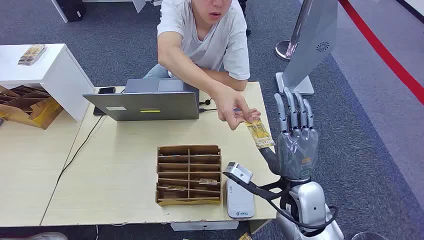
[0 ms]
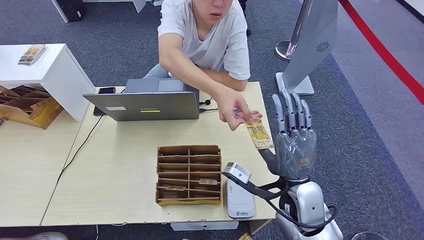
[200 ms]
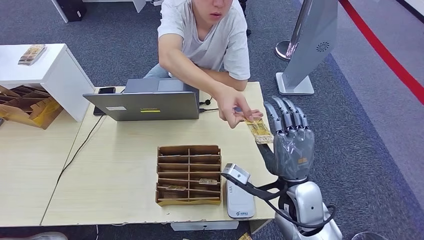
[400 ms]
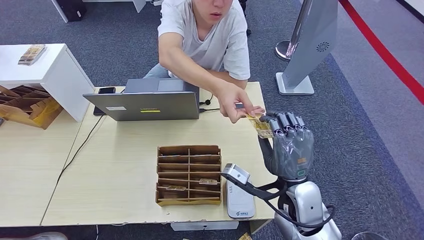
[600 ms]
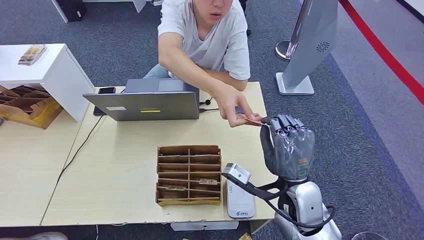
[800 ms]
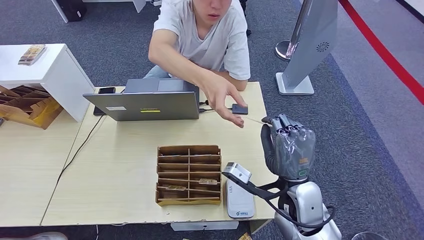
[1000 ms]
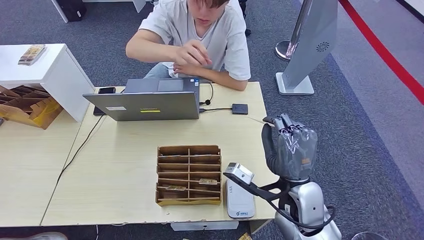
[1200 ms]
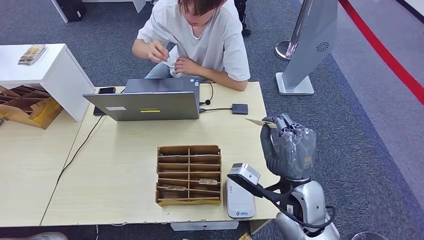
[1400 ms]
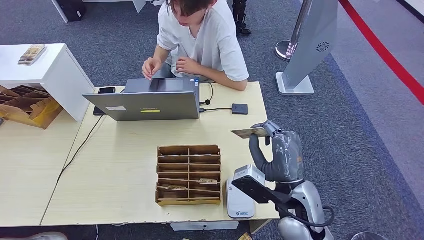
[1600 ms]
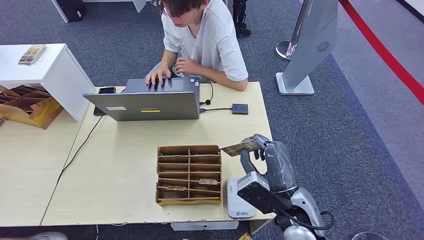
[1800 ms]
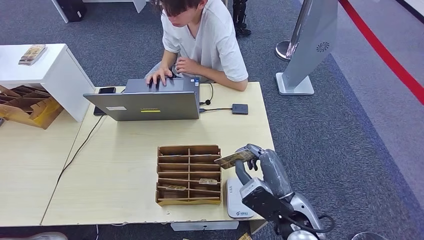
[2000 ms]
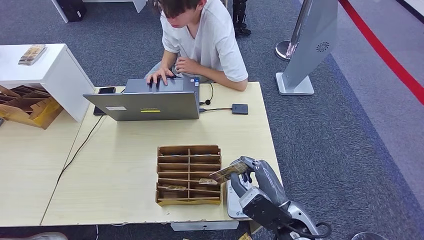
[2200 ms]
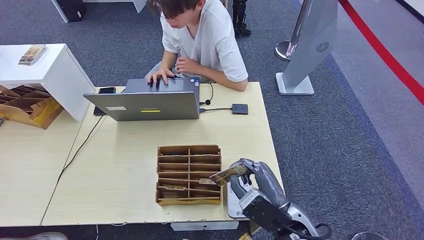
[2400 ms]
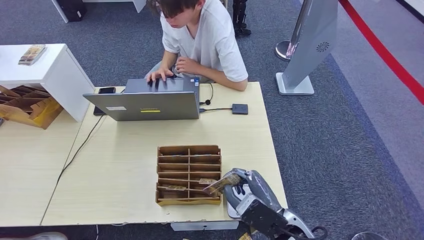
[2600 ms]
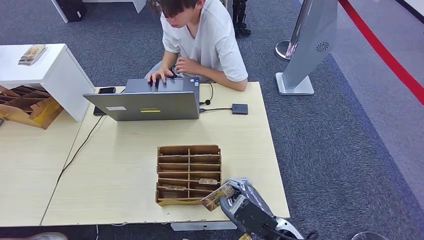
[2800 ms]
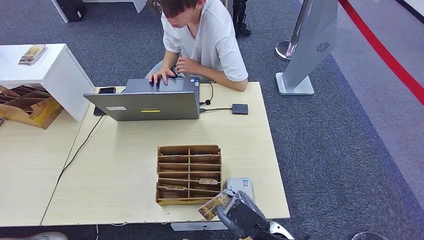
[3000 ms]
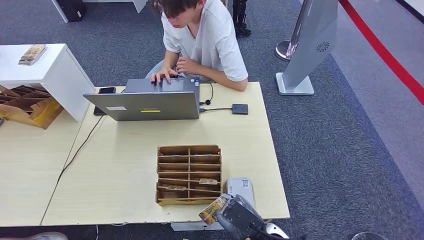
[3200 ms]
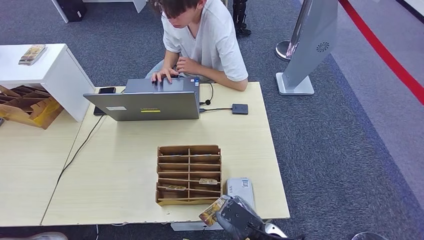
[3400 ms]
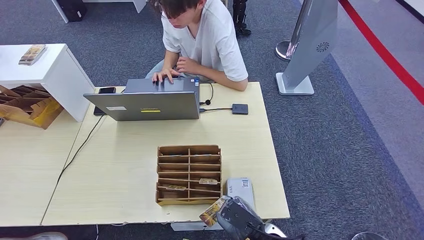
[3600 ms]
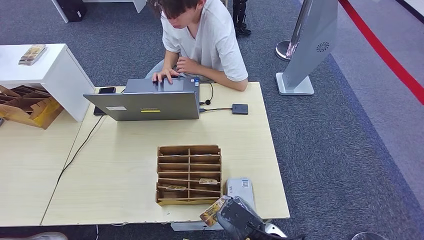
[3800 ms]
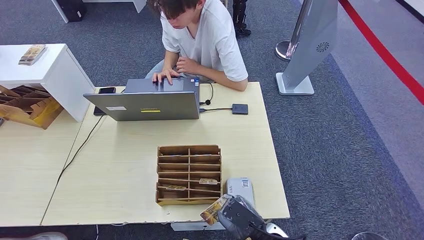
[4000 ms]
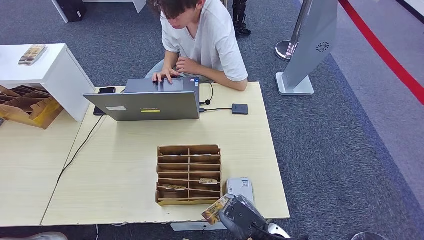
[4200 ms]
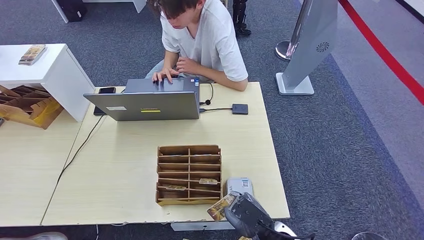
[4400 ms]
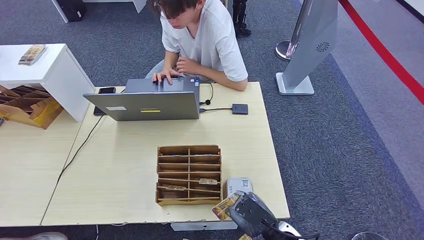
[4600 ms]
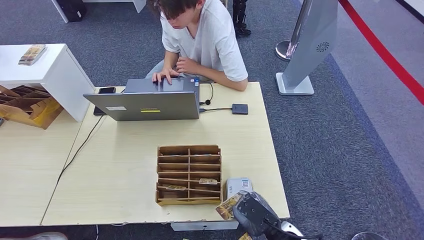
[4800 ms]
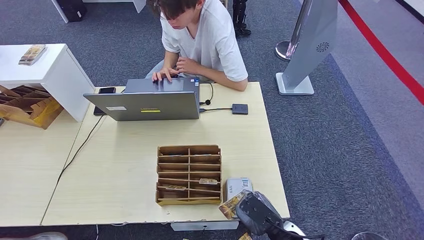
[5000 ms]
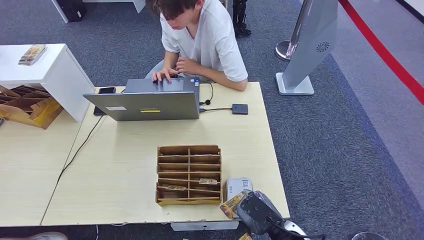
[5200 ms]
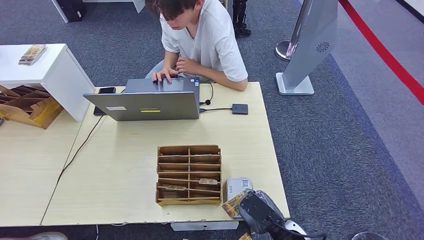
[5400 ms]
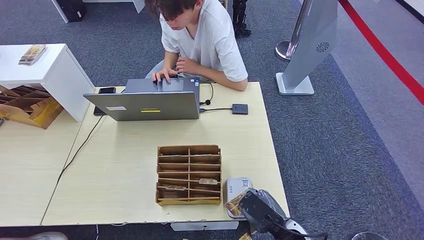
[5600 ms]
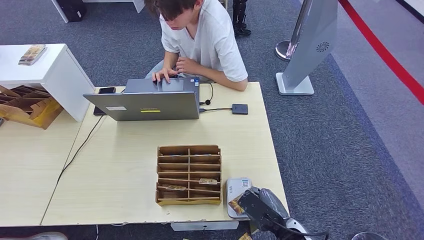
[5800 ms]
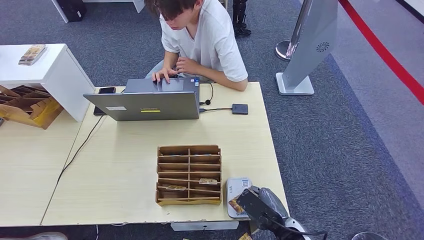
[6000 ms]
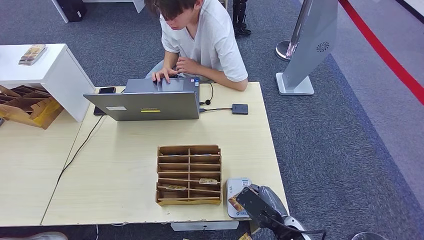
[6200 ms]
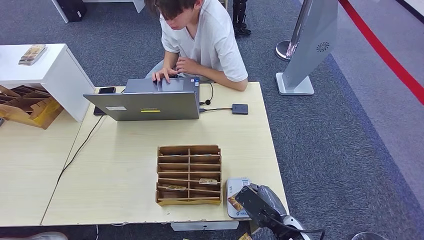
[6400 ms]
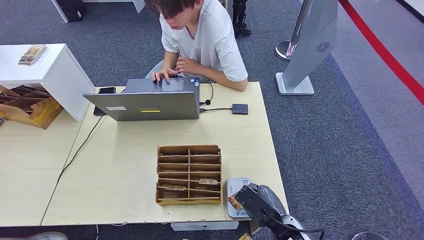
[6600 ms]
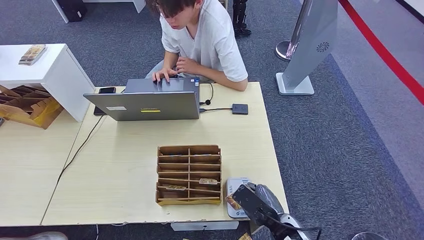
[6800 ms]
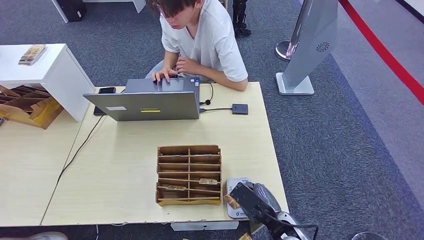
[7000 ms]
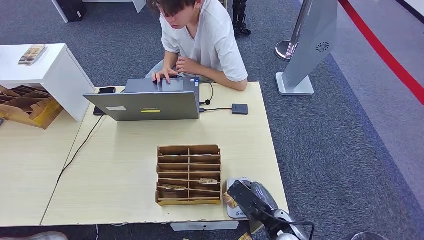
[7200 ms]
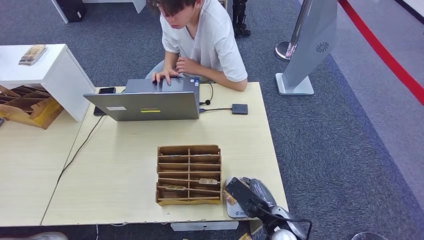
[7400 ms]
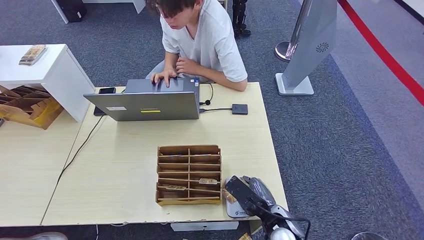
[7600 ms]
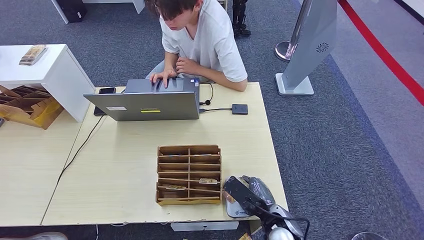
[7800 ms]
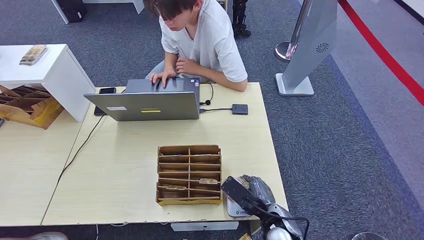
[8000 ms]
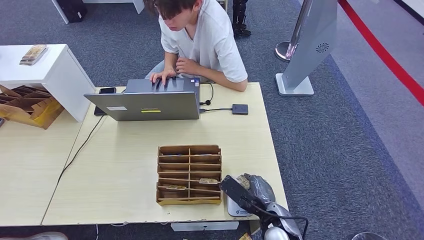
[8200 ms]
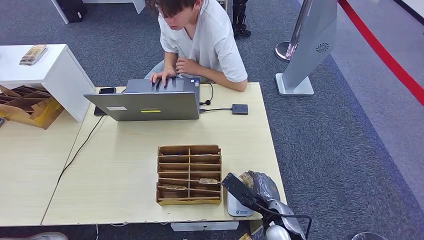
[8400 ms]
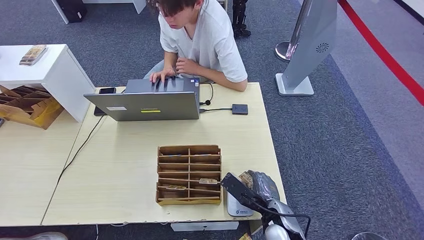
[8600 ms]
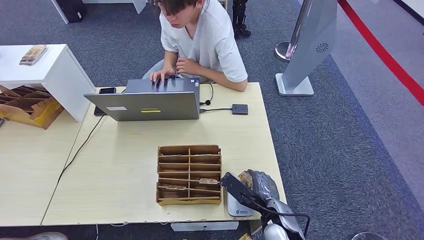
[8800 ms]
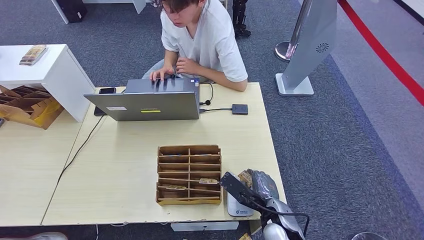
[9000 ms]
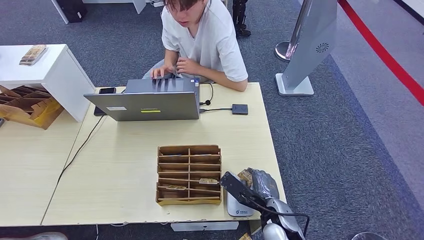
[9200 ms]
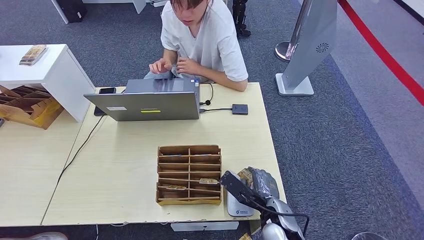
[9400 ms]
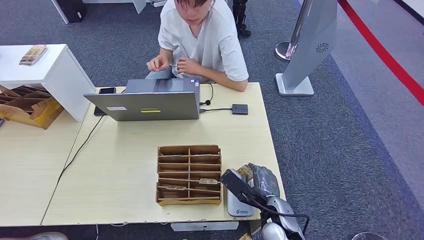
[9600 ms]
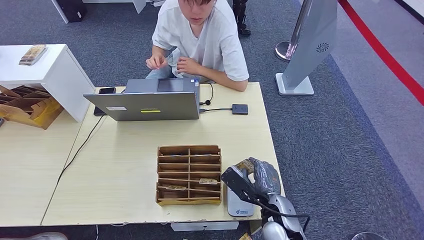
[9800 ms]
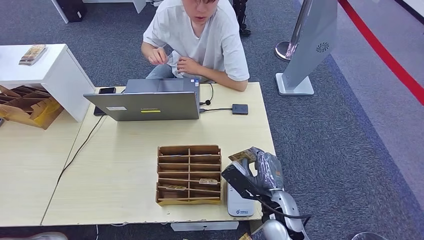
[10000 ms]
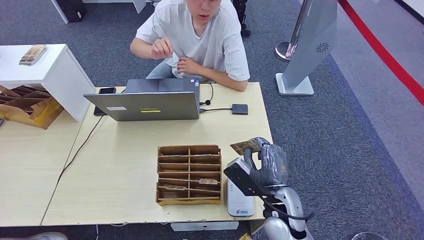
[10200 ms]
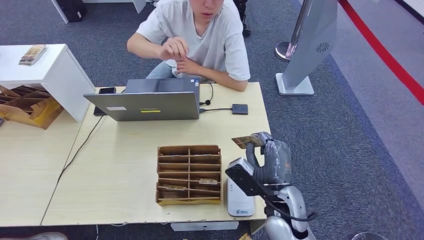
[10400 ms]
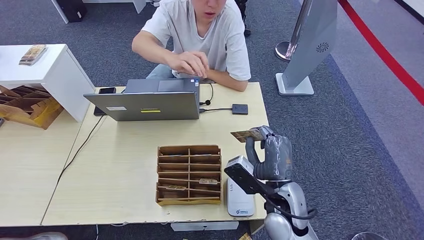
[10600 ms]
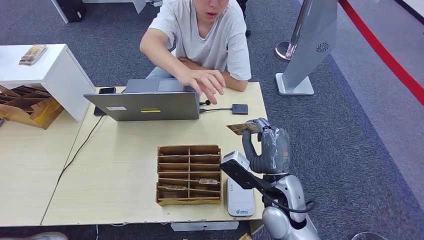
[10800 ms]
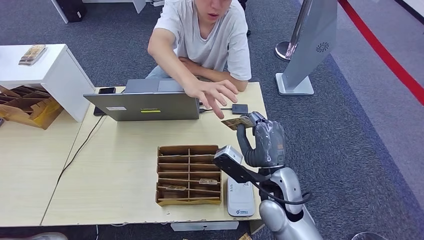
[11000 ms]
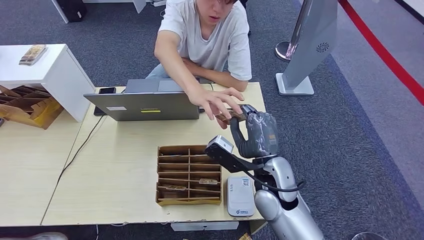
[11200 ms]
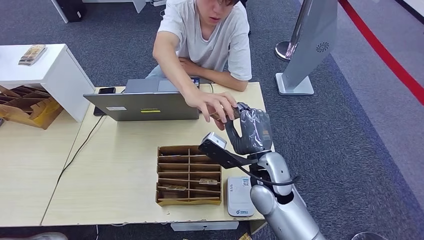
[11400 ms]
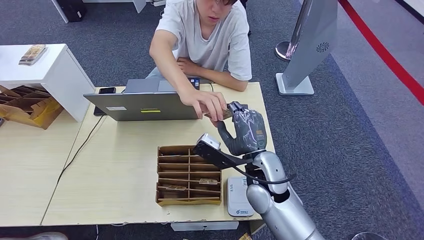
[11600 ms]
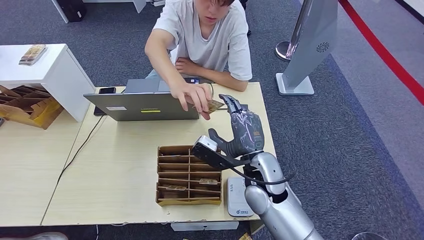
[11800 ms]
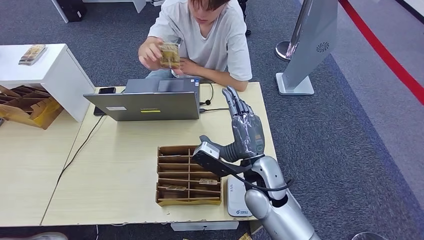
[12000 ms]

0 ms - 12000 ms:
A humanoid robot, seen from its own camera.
Step, 0 ms - 2200 ms: Take the ID card from the person's hand.
Step, 2400 ms - 7800 ms: Place the ID card on the card reader.
1600 ms - 3000 ms: The right hand heads downward and backward, covering some 10 cm.
3000 ms - 4400 ms: There are only small adjustments of the hands.
4400 ms - 6000 ms: There are only small adjustments of the hands.
6000 ms - 7600 ms: The hands stay close to where they were, moving slightly.
7600 ms - 9000 ms: The hands move only a little.
9000 ms - 10400 ms: The right hand goes some 5 cm upward.
10400 ms - 12000 ms: The right hand shifts some 5 cm forward.

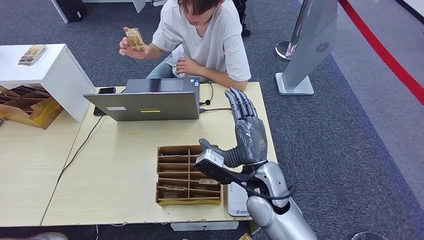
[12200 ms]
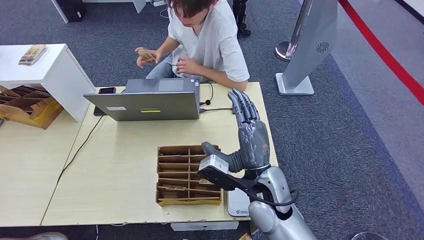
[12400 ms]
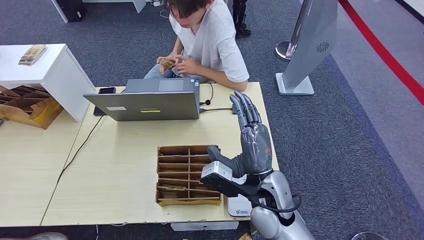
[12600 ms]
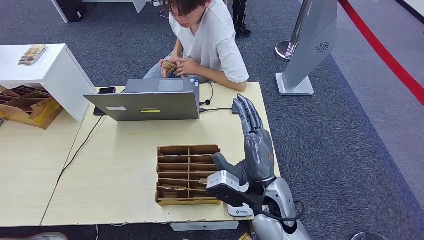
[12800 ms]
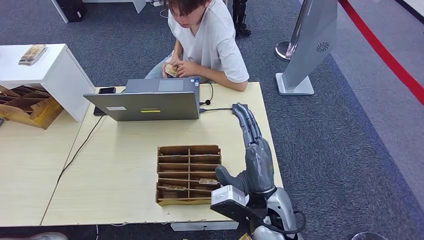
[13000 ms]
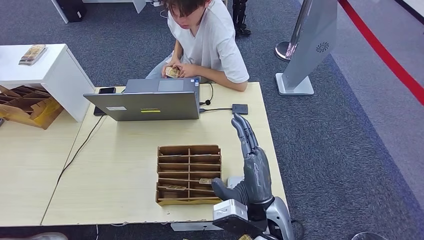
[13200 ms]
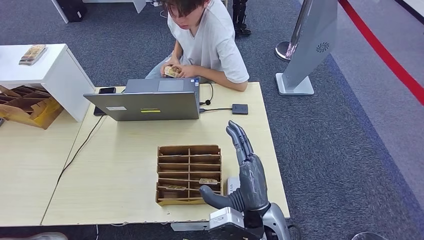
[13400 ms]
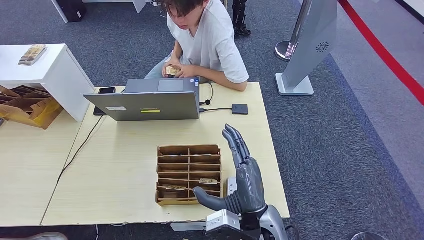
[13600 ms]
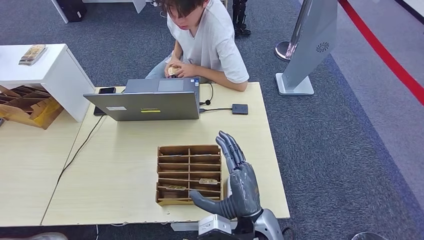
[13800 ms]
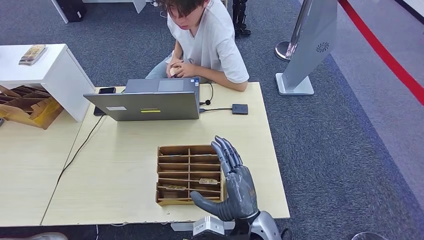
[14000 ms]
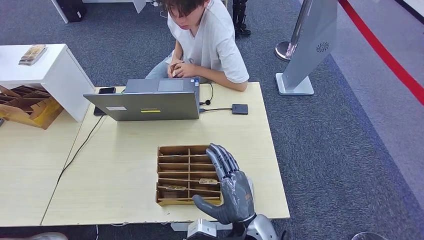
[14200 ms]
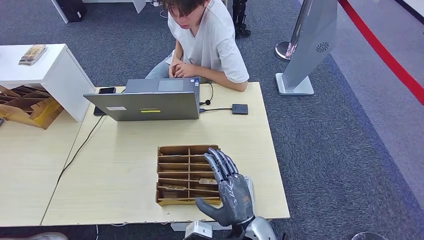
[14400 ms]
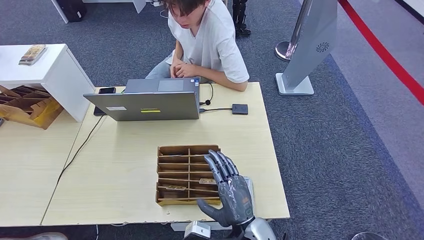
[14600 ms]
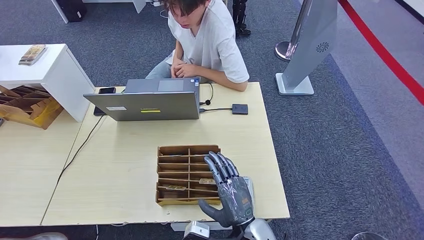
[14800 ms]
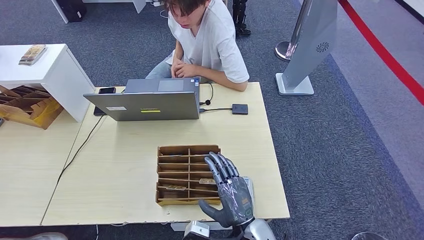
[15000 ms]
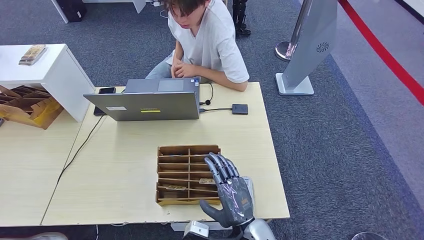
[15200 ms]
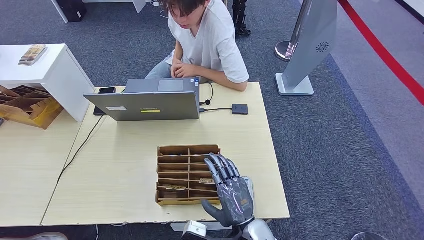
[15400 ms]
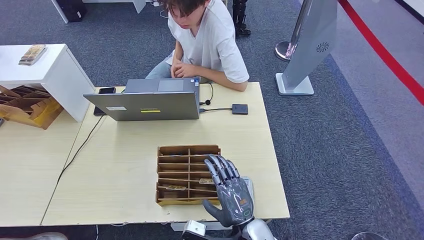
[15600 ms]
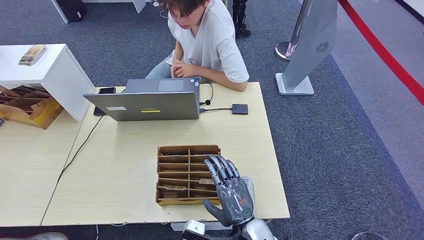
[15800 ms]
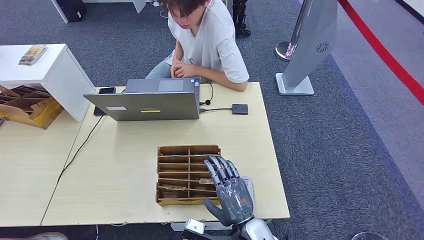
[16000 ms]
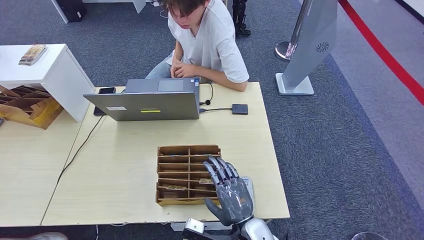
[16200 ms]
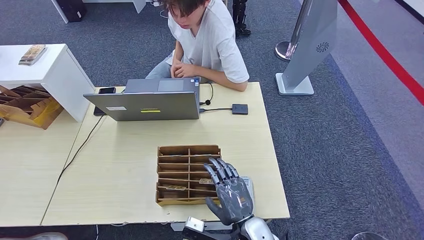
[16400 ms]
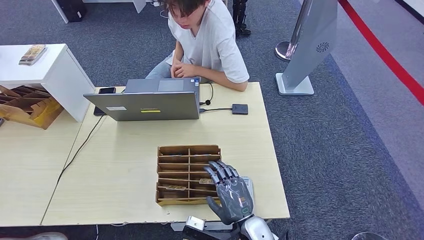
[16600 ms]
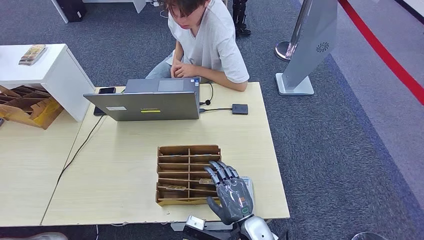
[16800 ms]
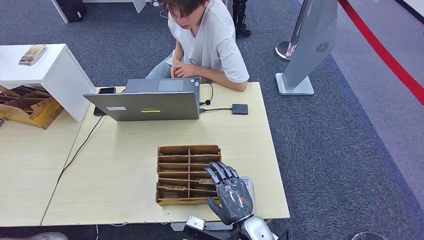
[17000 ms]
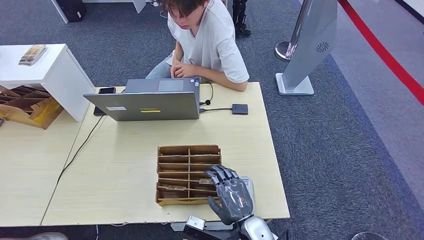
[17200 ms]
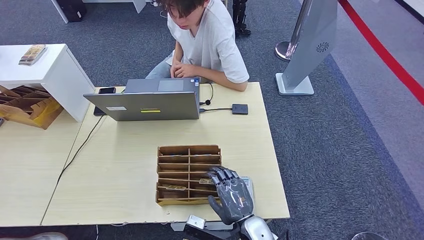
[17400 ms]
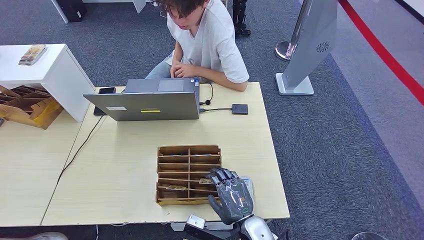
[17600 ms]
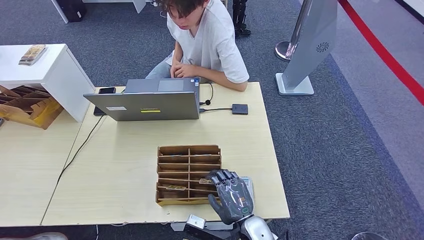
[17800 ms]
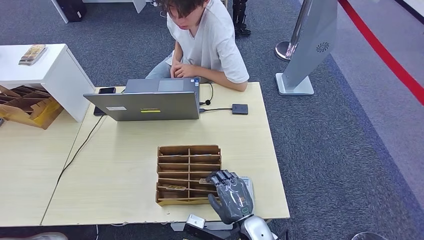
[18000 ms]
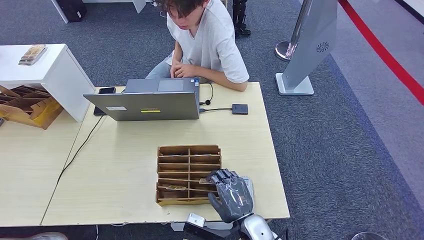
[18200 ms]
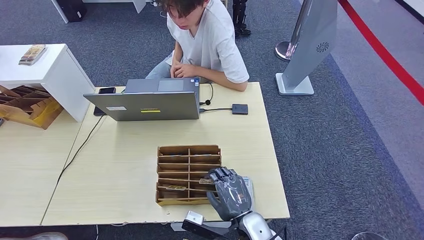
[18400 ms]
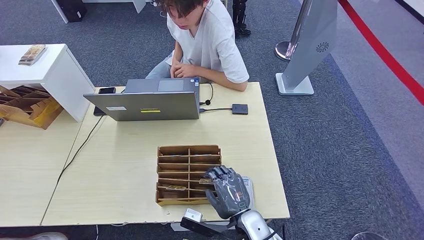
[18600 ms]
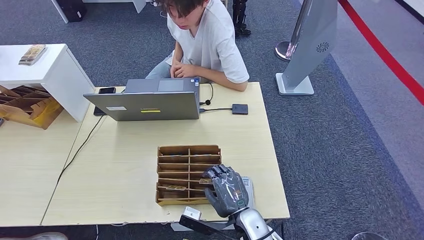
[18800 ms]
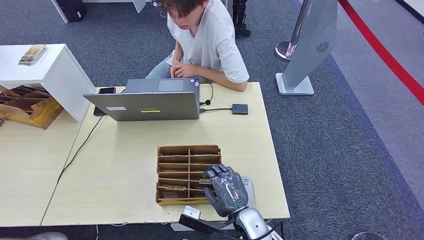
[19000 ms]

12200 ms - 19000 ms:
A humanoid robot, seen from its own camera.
12200 ms - 13600 ms: The right hand moves backward, approximately 10 cm.
13600 ms - 15000 ms: The right hand is displaced downward by approximately 5 cm.
15000 ms - 19000 ms: There are only small adjustments of the hands.
